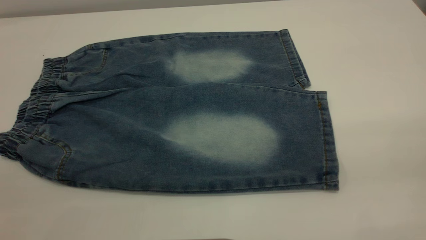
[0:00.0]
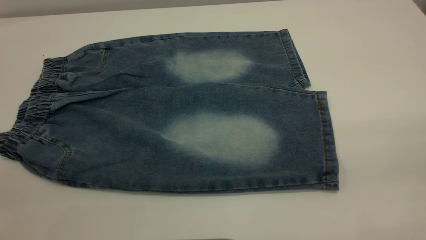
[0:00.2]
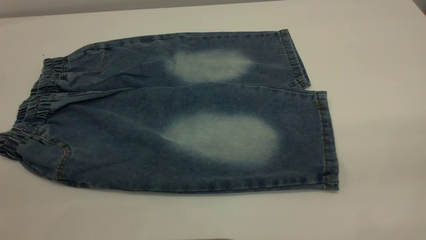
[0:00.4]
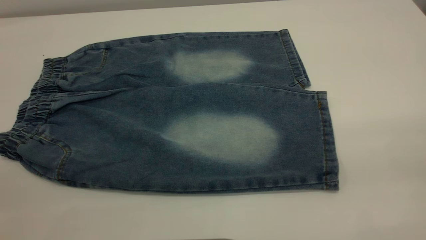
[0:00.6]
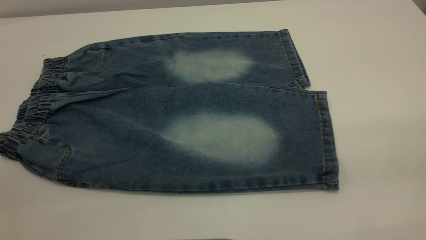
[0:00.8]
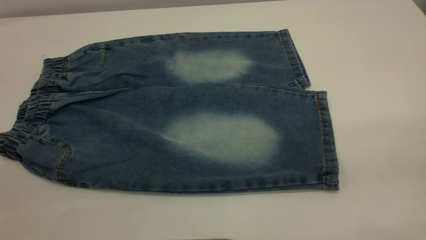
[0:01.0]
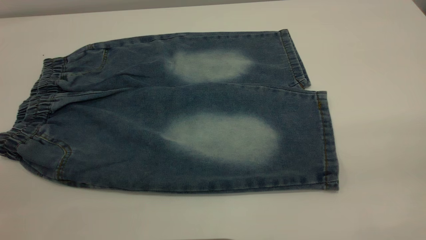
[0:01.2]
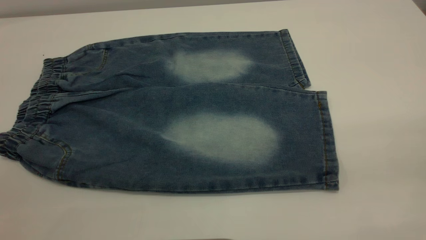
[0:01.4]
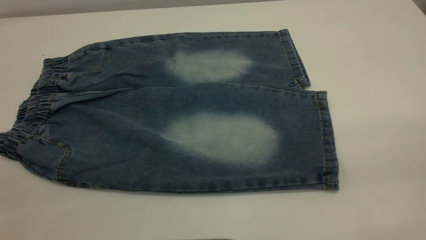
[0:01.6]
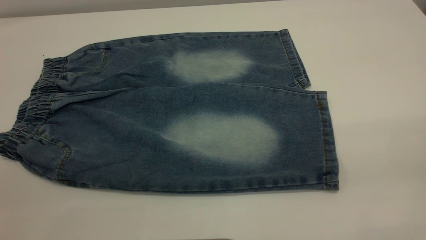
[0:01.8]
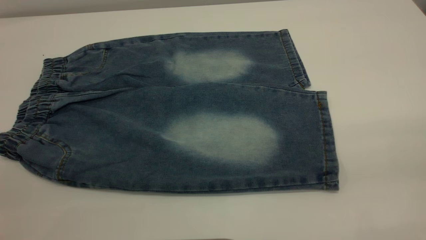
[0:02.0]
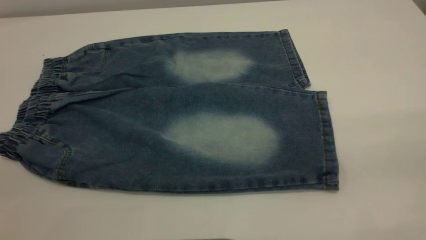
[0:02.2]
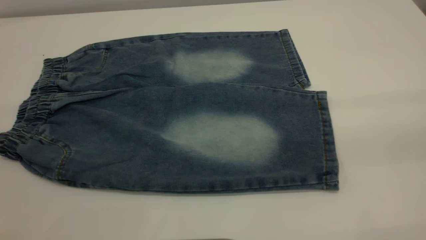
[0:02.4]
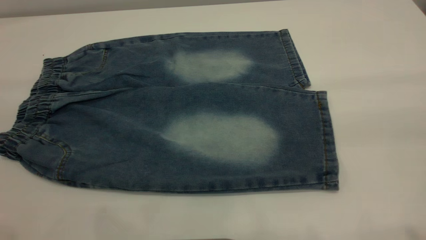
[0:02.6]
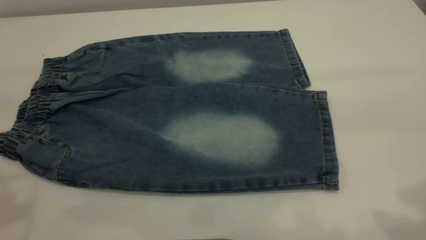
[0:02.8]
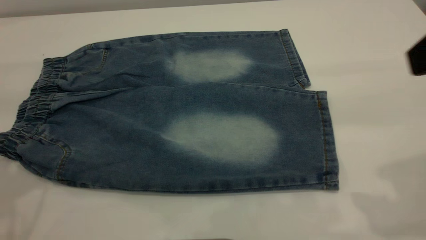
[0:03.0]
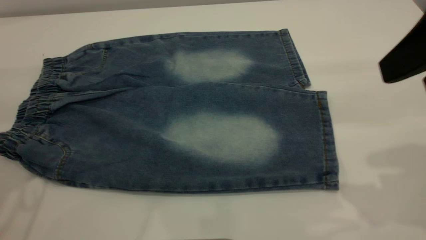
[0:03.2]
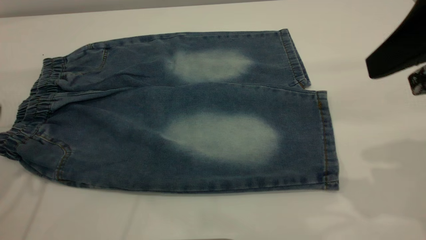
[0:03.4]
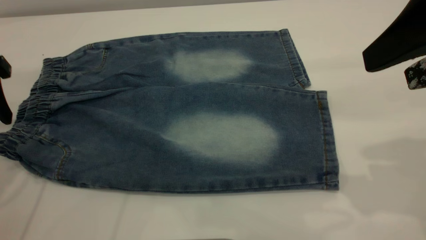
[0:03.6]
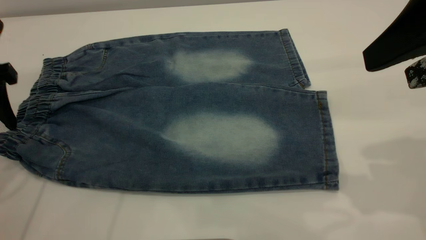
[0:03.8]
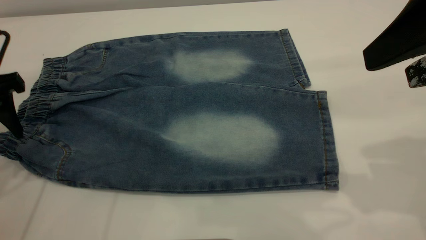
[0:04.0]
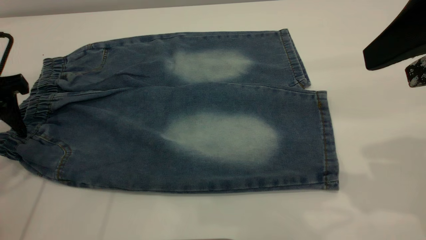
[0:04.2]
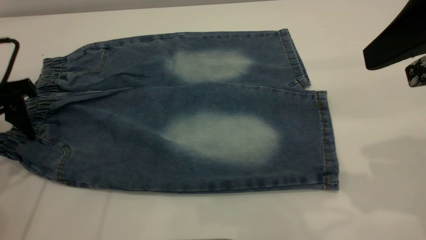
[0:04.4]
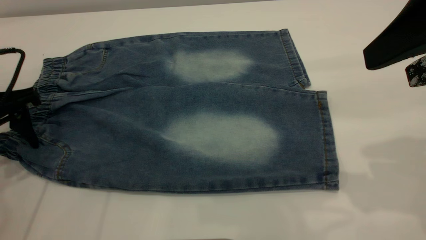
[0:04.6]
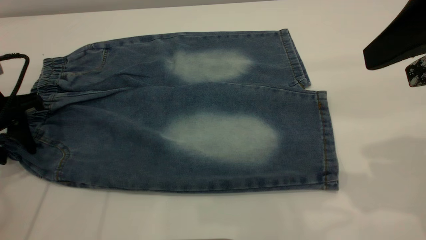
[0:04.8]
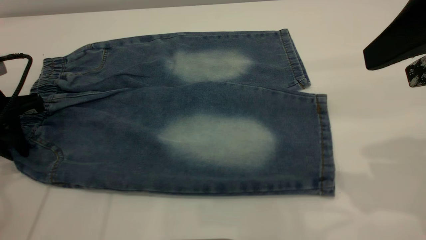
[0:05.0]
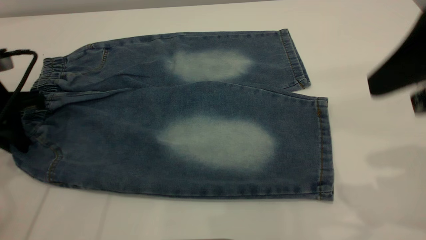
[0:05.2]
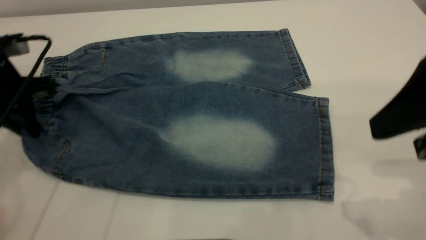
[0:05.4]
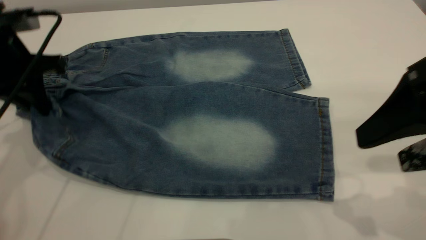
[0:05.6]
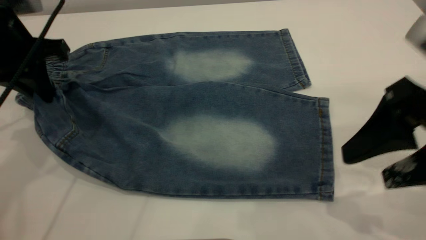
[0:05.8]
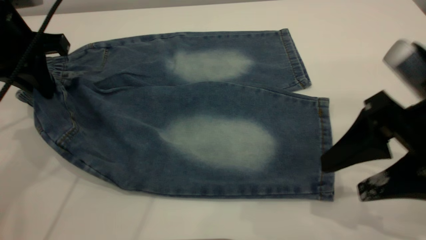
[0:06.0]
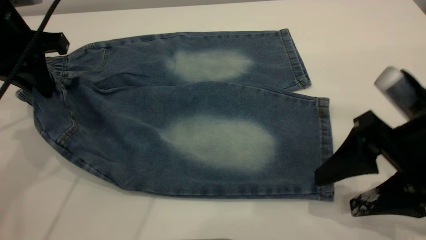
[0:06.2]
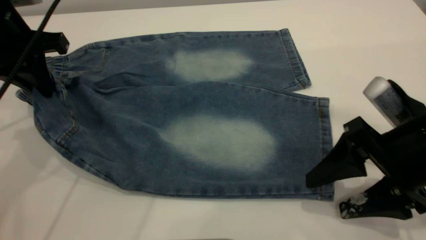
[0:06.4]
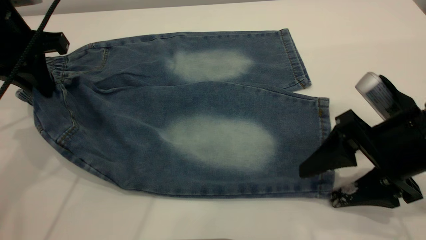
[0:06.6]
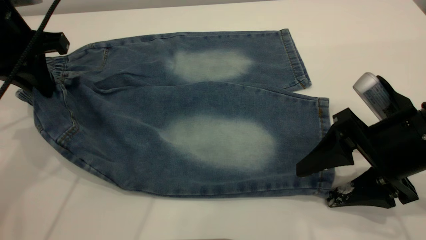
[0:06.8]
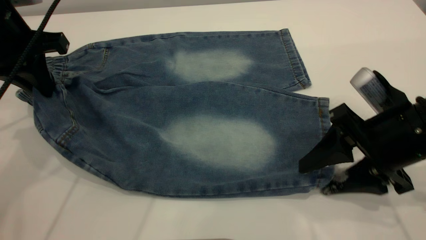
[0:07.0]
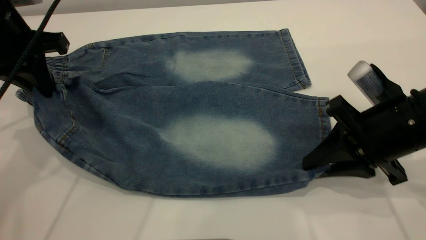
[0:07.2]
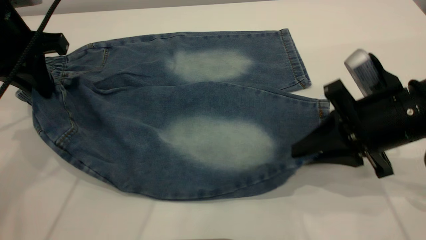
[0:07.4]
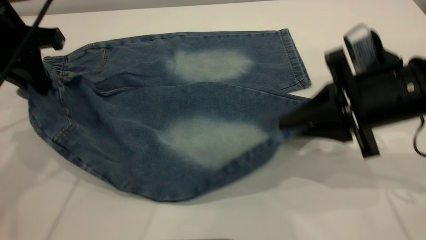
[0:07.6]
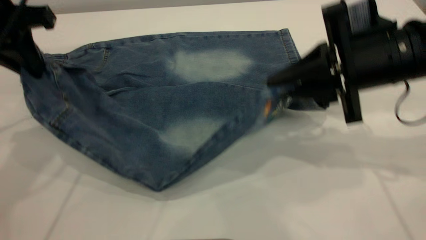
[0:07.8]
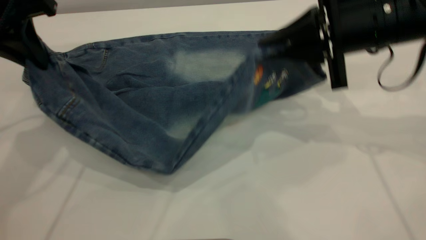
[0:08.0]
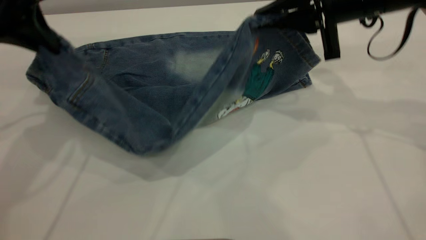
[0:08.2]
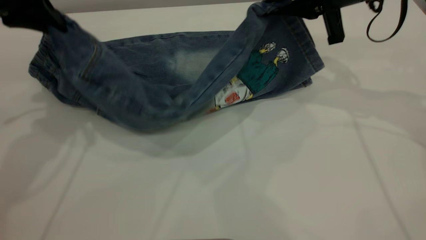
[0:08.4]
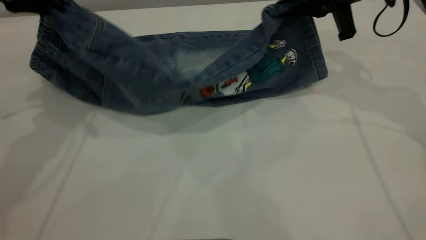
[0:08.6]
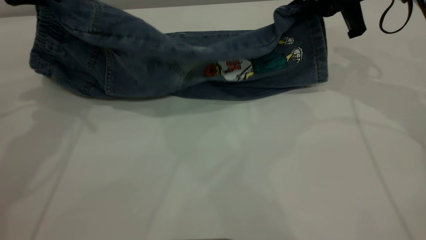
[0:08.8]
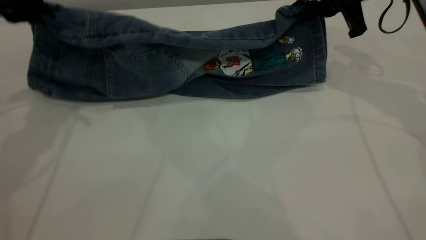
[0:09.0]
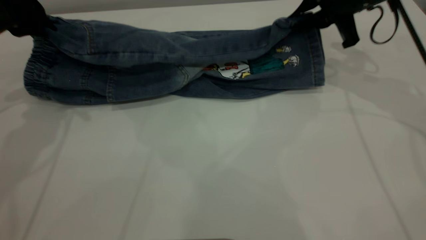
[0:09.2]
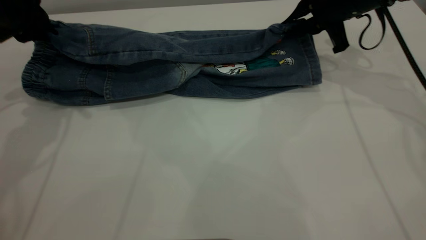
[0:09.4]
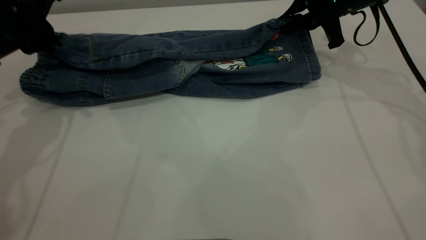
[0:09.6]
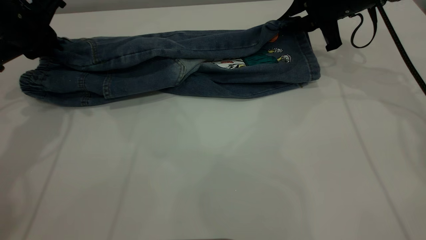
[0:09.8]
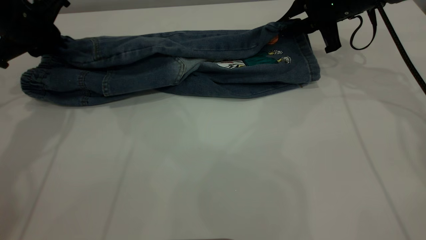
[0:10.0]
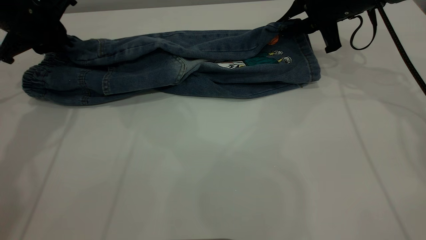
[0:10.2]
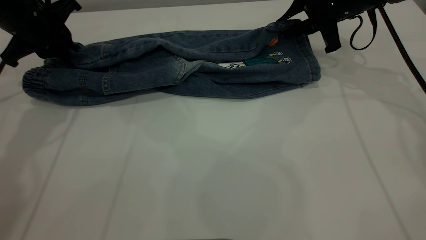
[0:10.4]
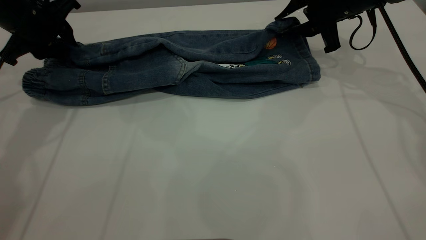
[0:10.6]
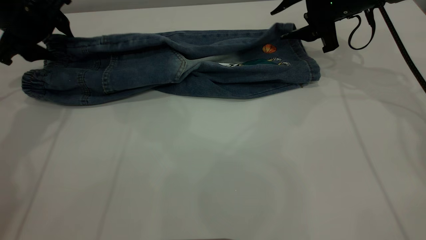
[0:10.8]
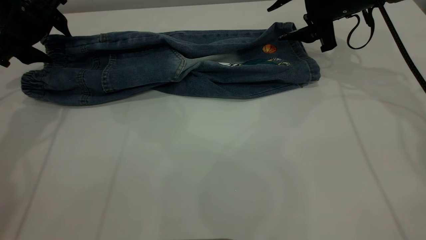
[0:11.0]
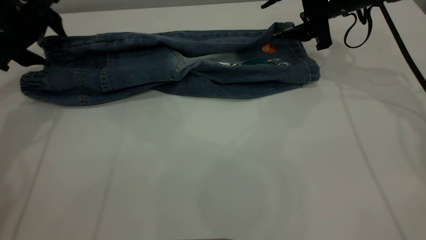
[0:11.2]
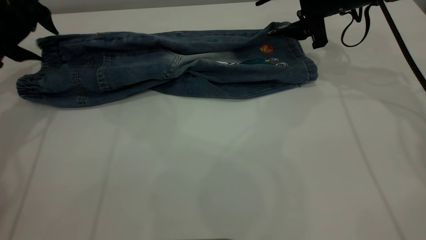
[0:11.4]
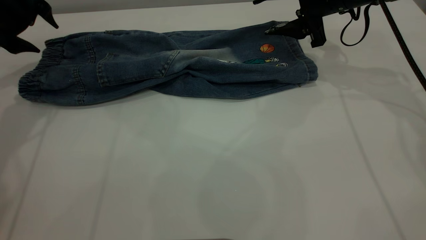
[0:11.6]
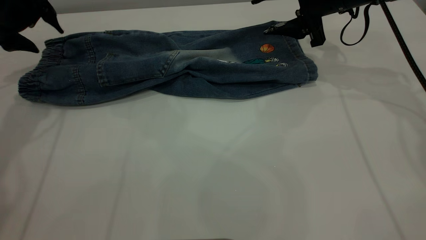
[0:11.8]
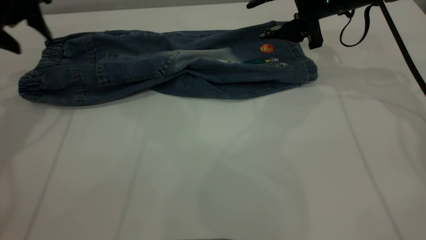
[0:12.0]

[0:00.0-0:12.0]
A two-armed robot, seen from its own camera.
Step, 0:00.0 to 0:12.0: Fold the bottom of the pants upward.
0:00.0 to 0:01.6: Both grippers stay put.
0:03.0 to 0:04.4: The left gripper moves downward and forward, about 15 cm.
0:04.4 to 0:06.0: The left gripper moves to the right and upward, some 10 cm, and closes. Meanwhile the right gripper goes approximately 10 cm downward.
0:06.0 to 0:07.6: The right gripper moves forward, about 5 cm, and closes up.
0:07.6 to 0:09.0: The right gripper heads forward, covering approximately 15 cm, while the left gripper ends up about 5 cm from where it was.
0:09.0 to 0:10.4: The left gripper heads downward, covering approximately 5 cm, while the right gripper shifts by some 5 cm.
0:10.4 to 0:12.0: The right gripper opens. The left gripper travels upward by about 5 cm, and opens.

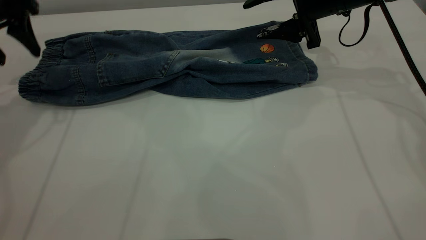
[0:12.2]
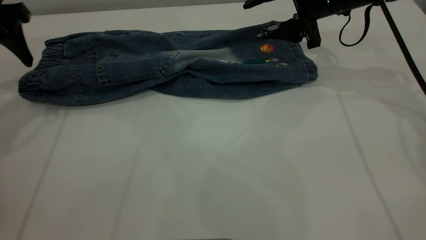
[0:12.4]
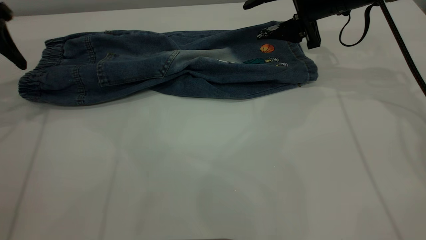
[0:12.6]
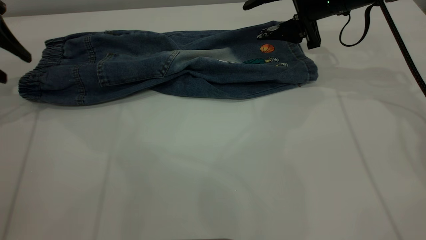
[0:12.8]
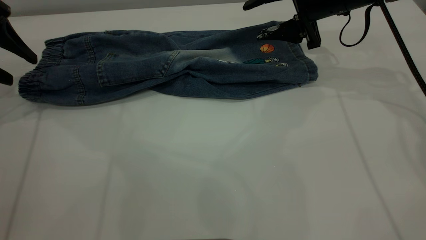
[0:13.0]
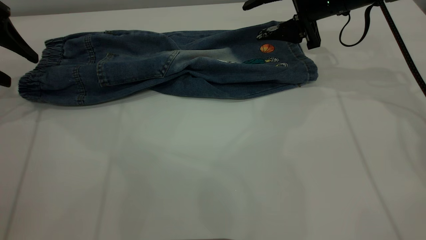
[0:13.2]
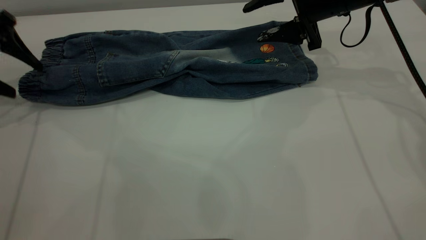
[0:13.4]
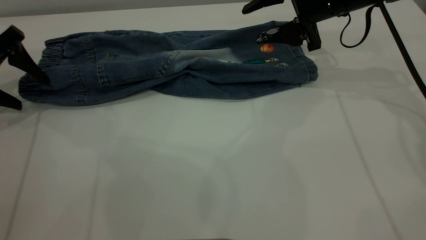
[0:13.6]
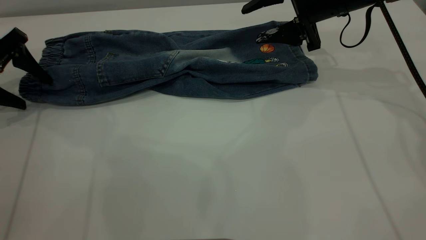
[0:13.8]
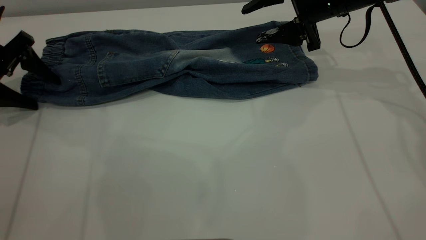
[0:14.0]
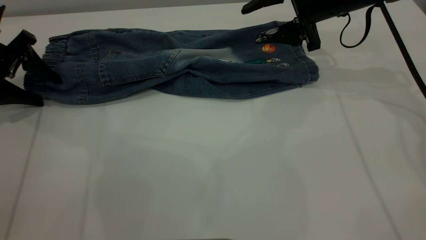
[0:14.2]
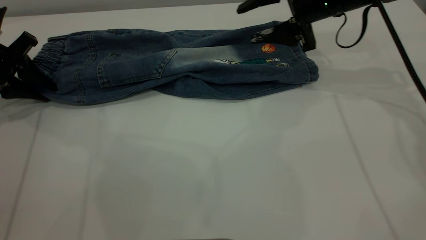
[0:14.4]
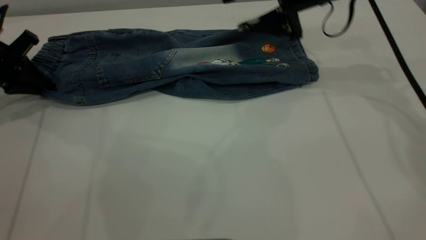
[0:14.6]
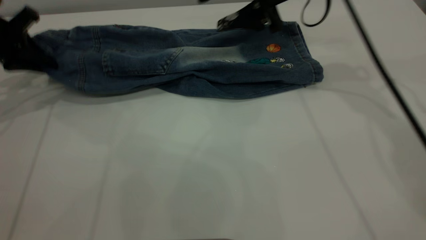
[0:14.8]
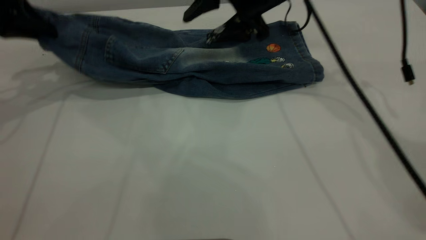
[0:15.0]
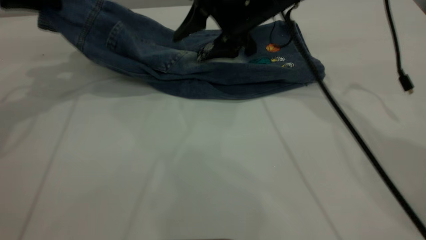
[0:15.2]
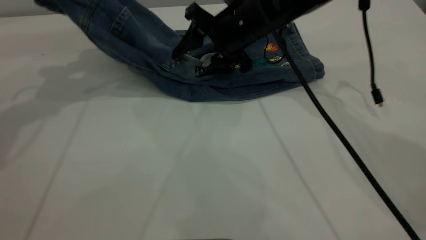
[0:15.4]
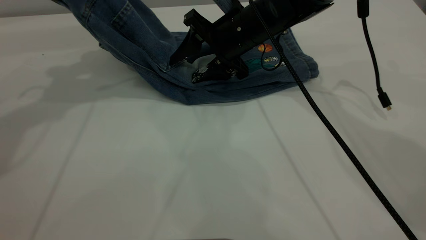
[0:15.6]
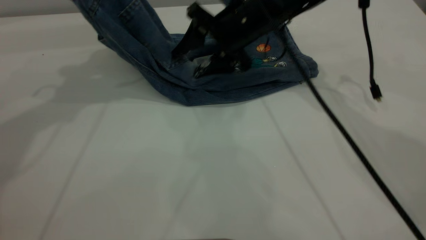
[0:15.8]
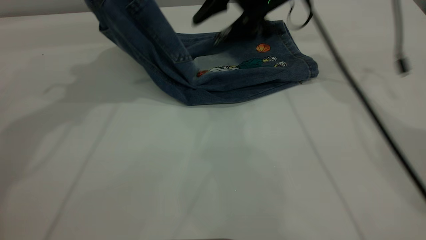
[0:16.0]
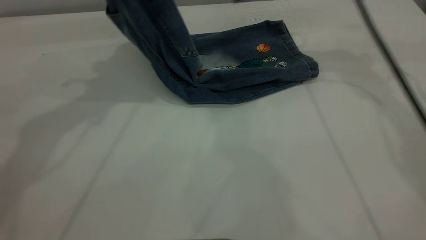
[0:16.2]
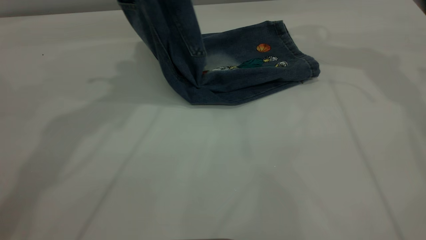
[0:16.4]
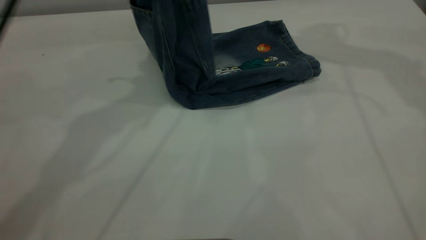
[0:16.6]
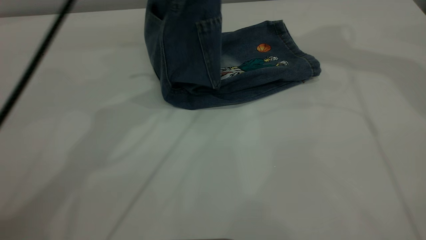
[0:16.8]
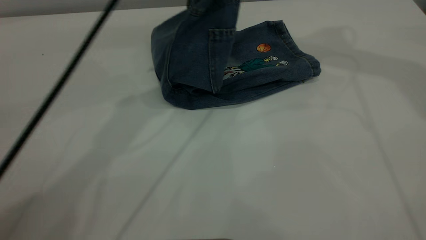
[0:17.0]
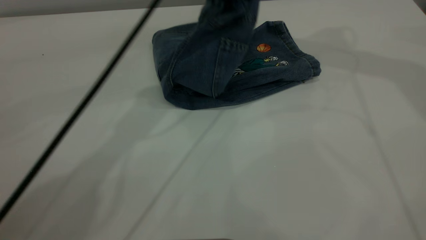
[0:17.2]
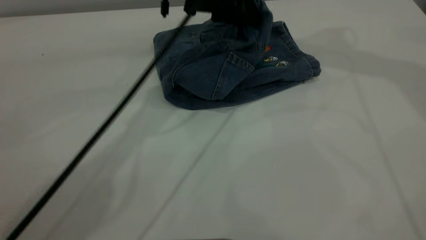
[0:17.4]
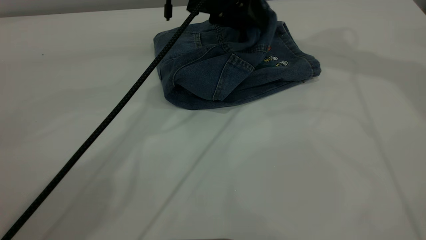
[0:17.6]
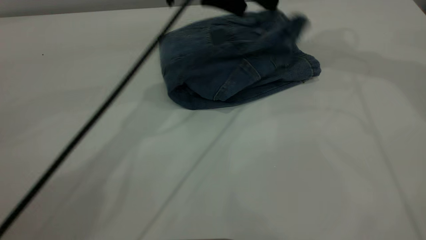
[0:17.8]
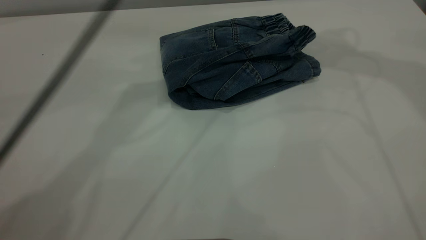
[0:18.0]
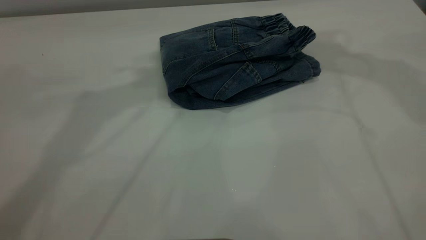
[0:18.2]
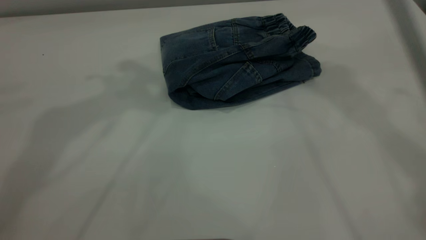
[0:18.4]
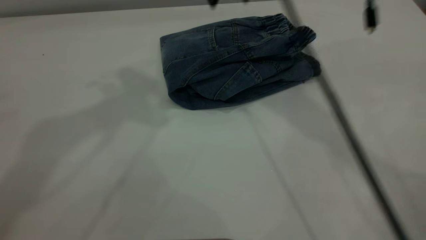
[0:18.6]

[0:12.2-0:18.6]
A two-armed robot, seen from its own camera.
Step, 0:12.2 to 0:18.6: Fold the pants from left to right.
0:12.2 to 0:13.8: The left gripper travels downward and to the left by about 10 cm.
0:13.8 to 0:15.4: The right gripper moves to the left, approximately 15 cm; the left gripper travels upward and to the right by approximately 20 cm, and closes up.
0:15.4 to 0:17.0: The right gripper shifts approximately 30 cm upward and to the right, while the left gripper shifts about 20 cm to the right.
0:17.0 to 0:18.6: The left gripper travels upward and to the left by about 25 cm, and opens its fingers, while the right gripper moves to the left and downward, roughly 20 cm.
